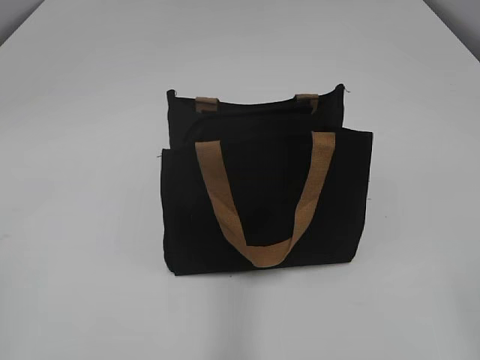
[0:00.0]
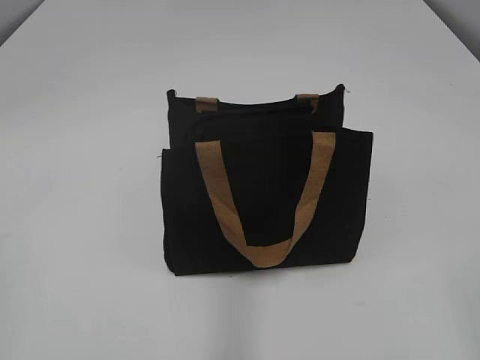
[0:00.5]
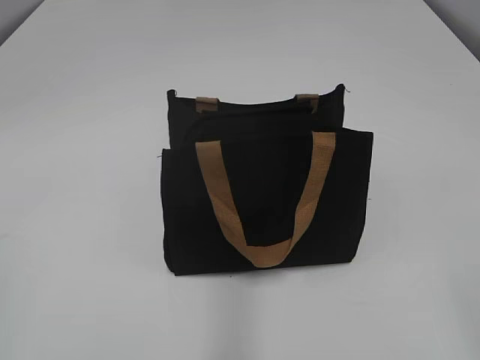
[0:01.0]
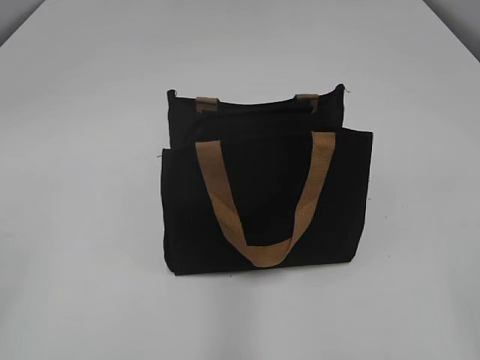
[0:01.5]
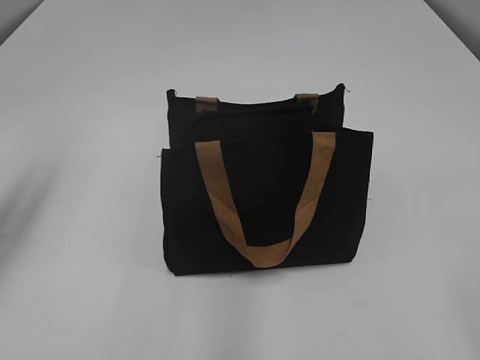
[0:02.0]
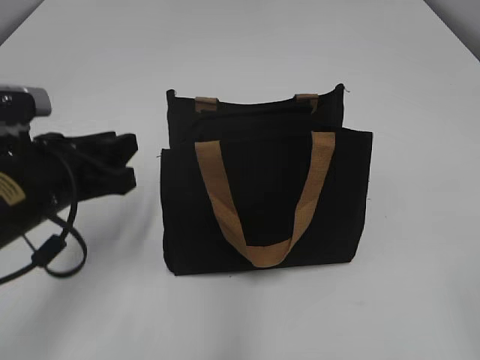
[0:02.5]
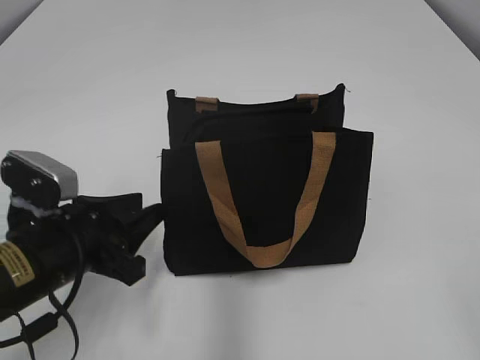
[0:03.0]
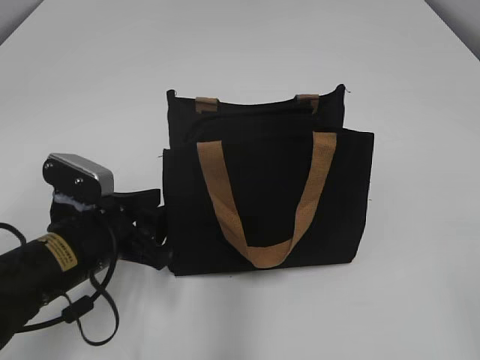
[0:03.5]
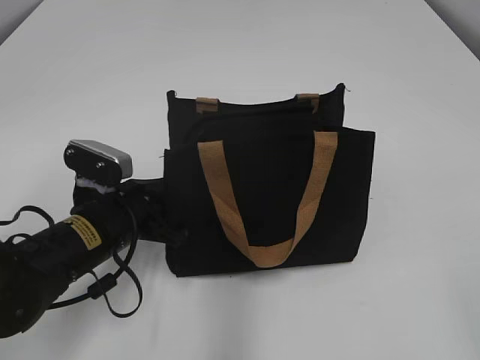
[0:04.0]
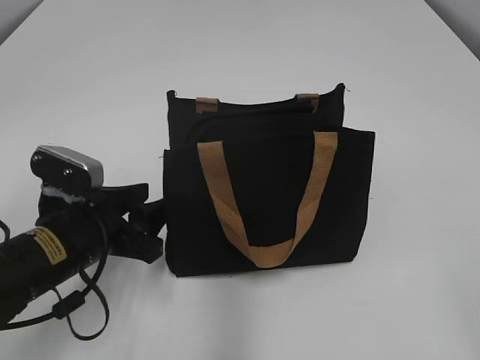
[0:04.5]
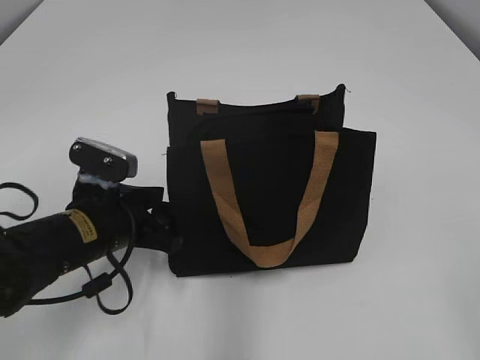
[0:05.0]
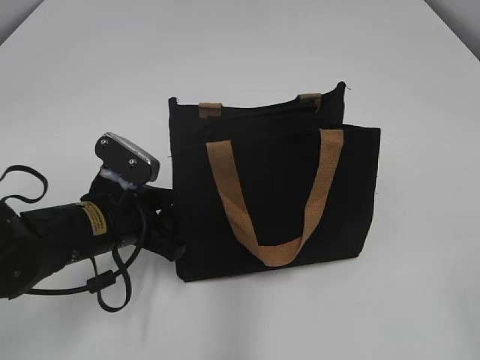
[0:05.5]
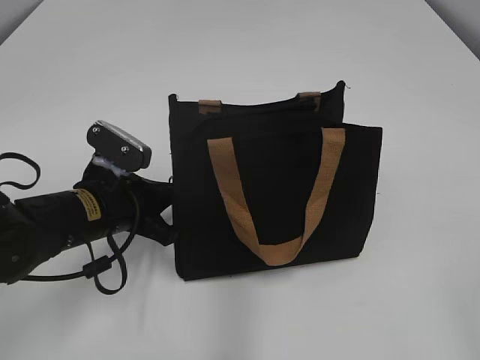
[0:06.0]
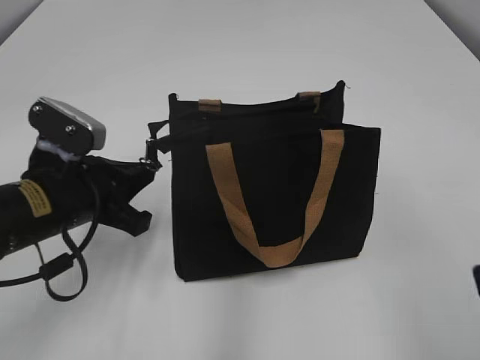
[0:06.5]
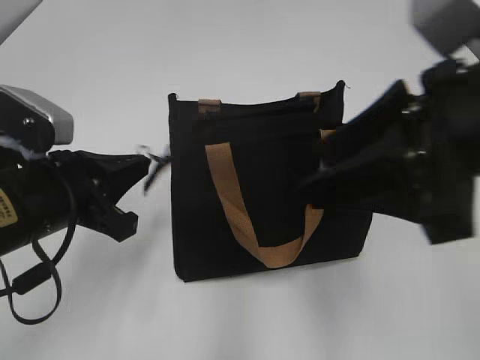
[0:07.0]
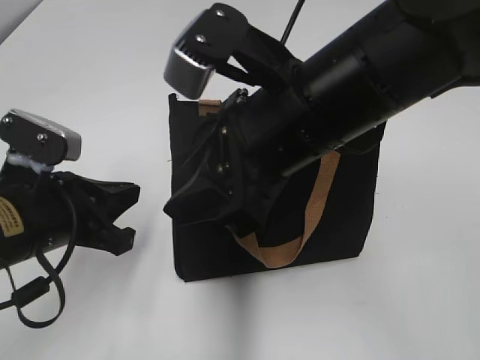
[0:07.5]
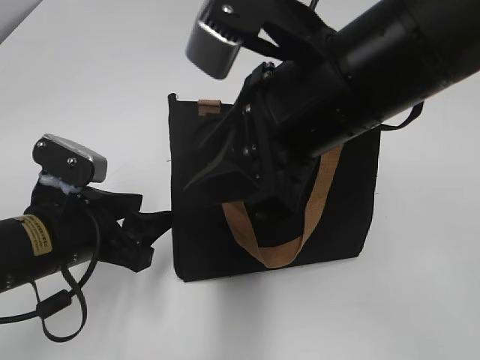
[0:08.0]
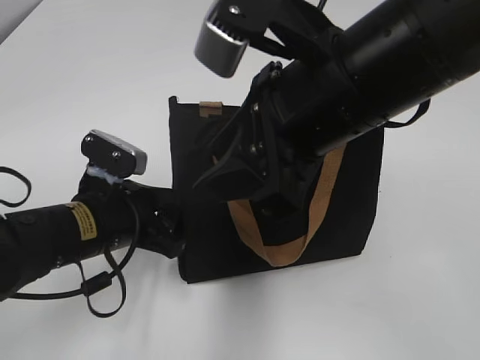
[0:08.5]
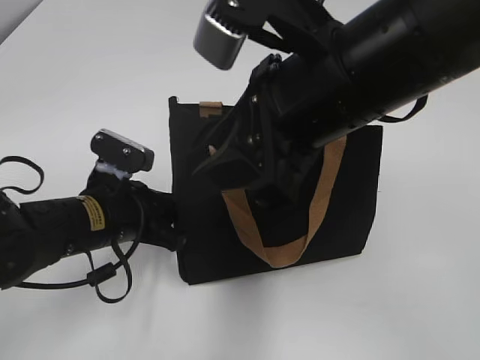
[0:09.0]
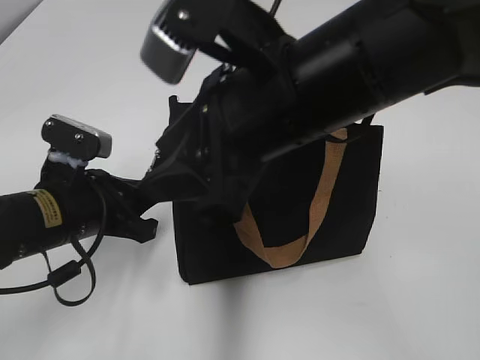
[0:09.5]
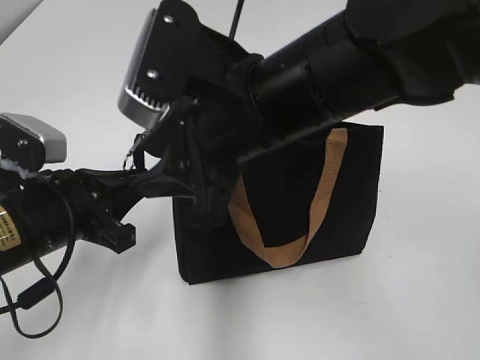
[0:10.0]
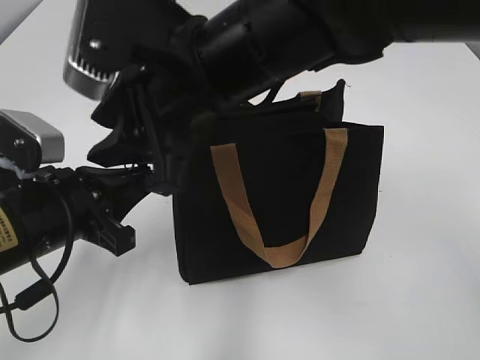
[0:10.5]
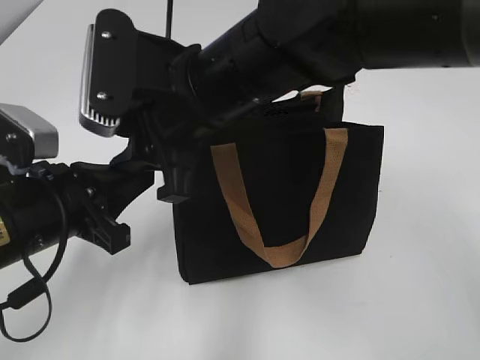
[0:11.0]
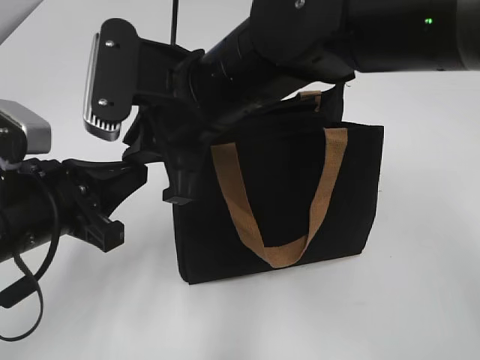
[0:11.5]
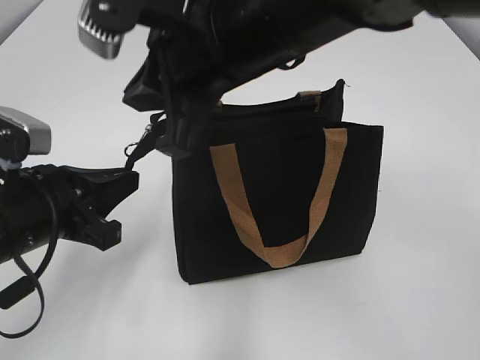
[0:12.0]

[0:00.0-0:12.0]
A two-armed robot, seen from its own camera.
0:02.0 to 0:04.0: The left gripper goes about 25 cm downward and to the right.
0:04.0 to 0:06.0: The left gripper opens, then closes once more.
0:06.0 to 0:08.0: The left gripper goes approximately 5 cm backward, and opens. Meanwhile the right gripper goes approximately 30 cm forward and to the left, and closes up.
0:08.0 to 0:10.0: The right gripper changes place by roughly 5 cm, while the left gripper closes up.
0:10.0 to 0:12.0: The right gripper closes up.

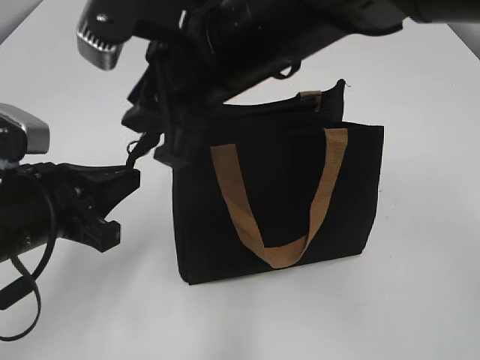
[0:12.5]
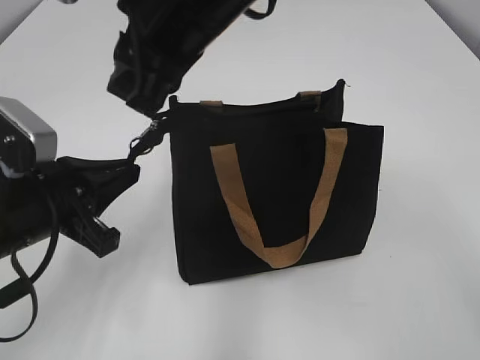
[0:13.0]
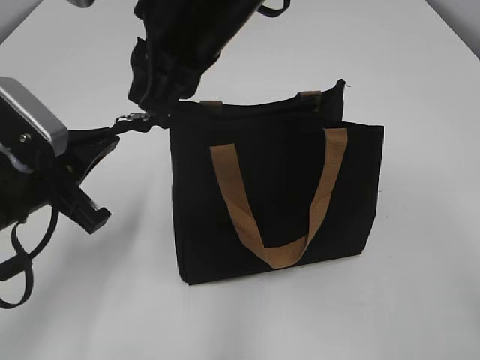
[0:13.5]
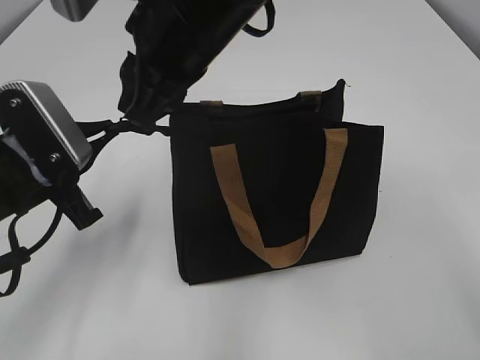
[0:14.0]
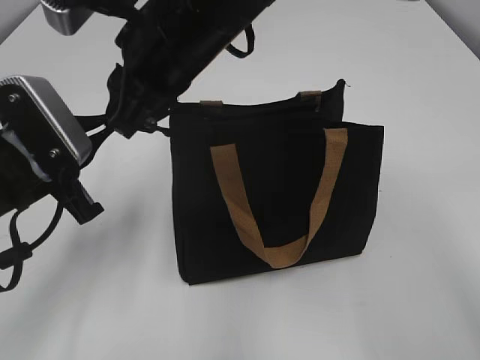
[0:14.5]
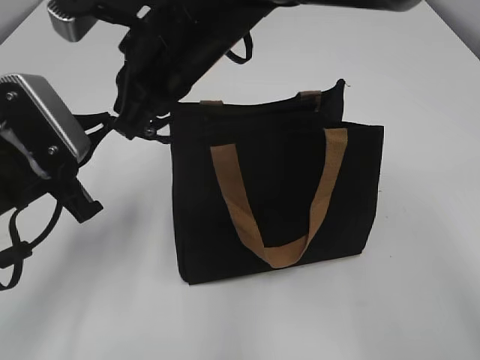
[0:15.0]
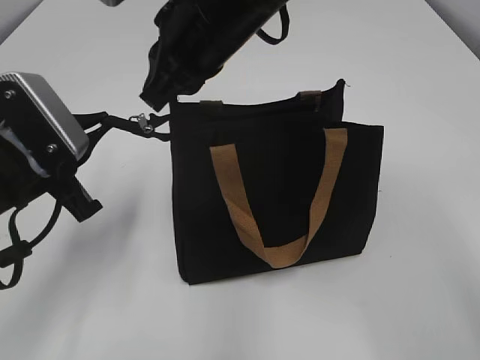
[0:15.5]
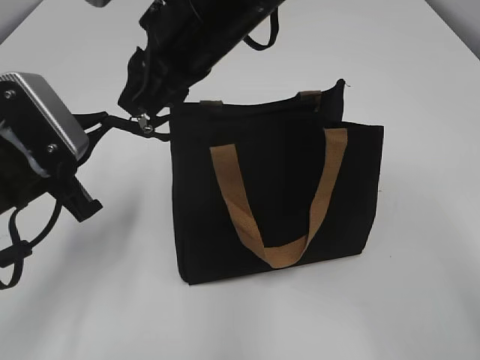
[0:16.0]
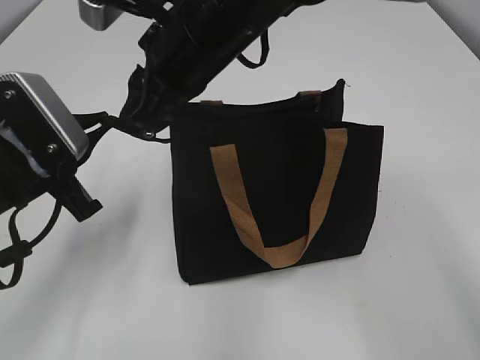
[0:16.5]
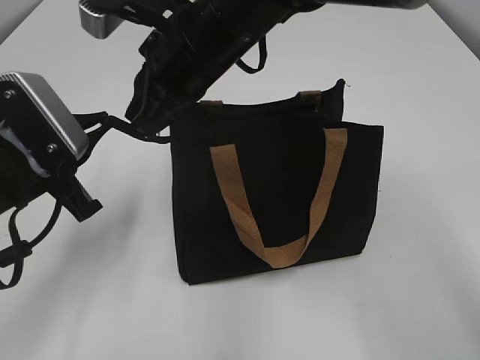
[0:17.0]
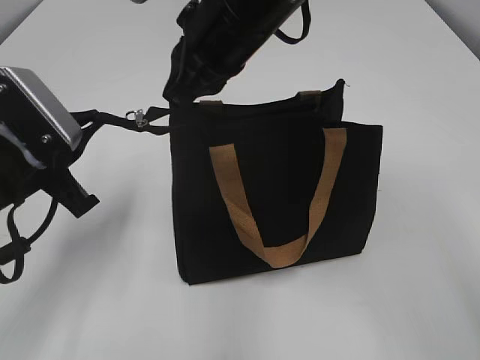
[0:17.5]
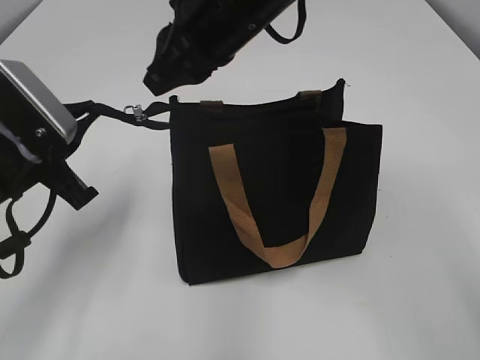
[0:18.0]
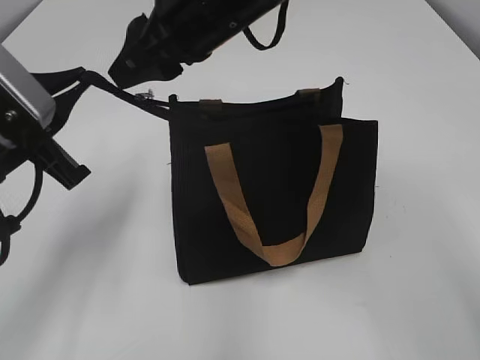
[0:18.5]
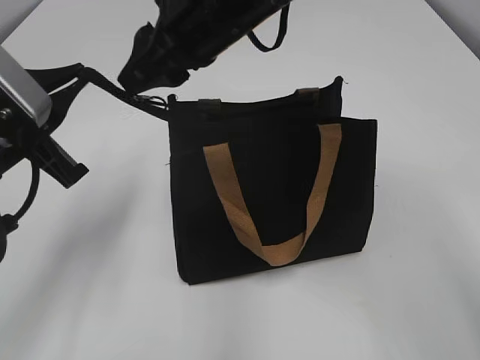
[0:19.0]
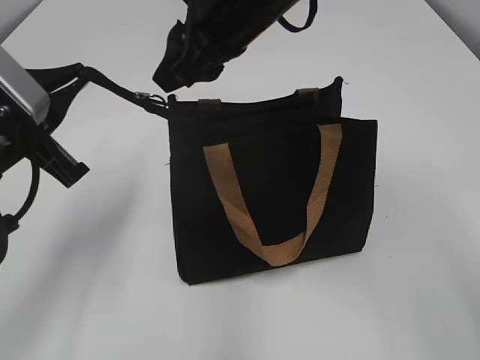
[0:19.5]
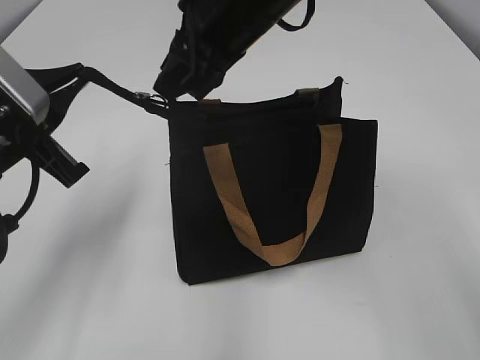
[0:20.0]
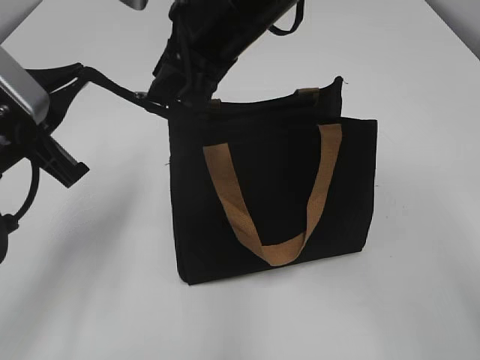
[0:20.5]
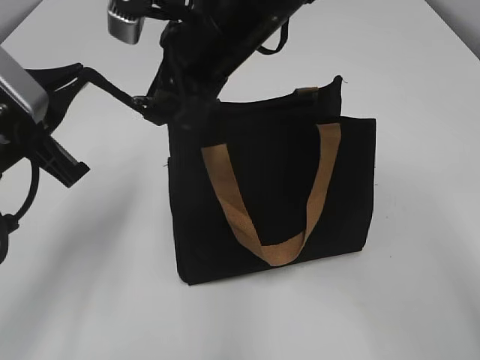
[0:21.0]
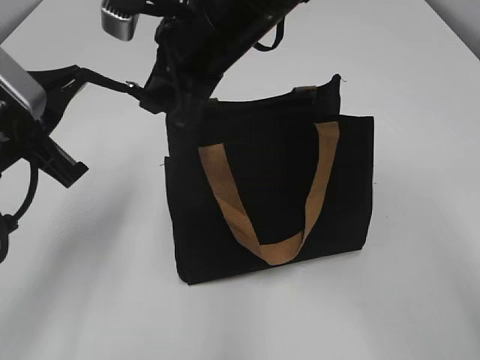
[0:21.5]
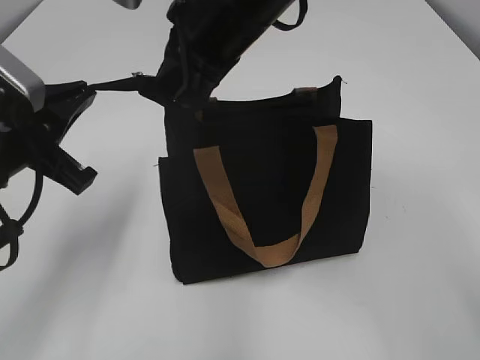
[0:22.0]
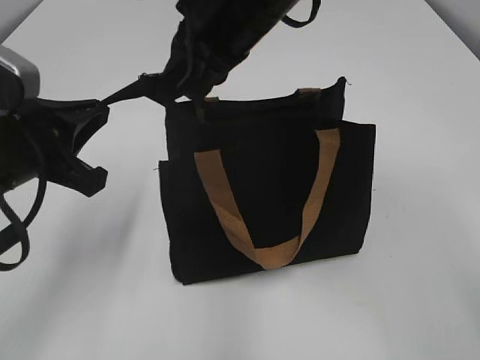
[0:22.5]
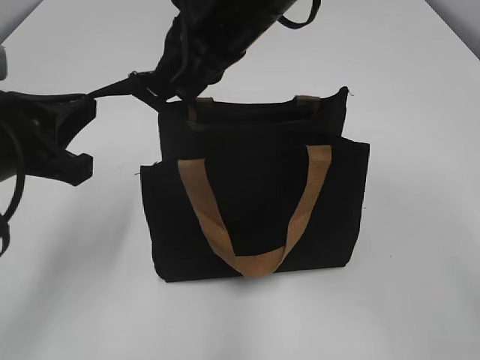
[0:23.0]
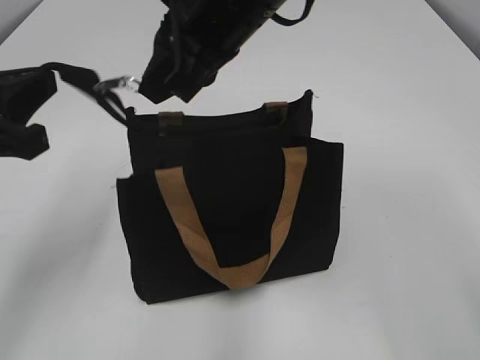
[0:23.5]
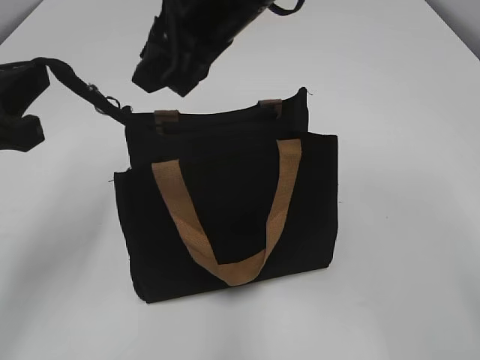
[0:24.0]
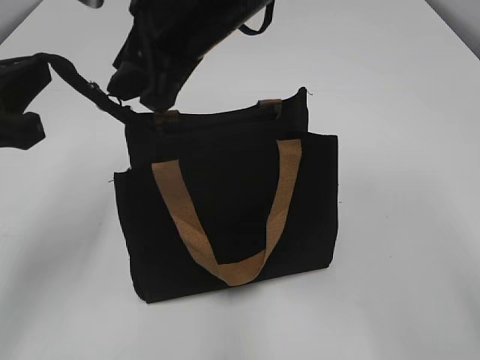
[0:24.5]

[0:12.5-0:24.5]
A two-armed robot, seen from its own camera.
0:12.5 to 0:14.5: The right gripper ends up roughly 5 cm from where it was.
0:14.5 to 0:16.5: The right gripper closes, then reopens.
0:16.5 to 0:18.5: The right gripper closes, then opens again.
0:20.5 to 0:22.5: The right gripper closes up.
0:22.5 to 0:24.5: The left gripper moves approximately 5 cm, while the right gripper opens its fingers.

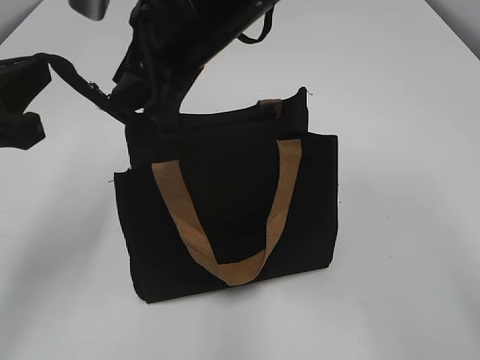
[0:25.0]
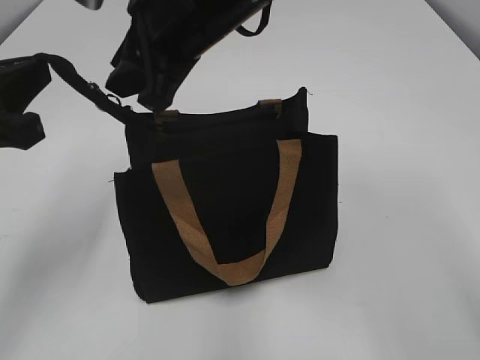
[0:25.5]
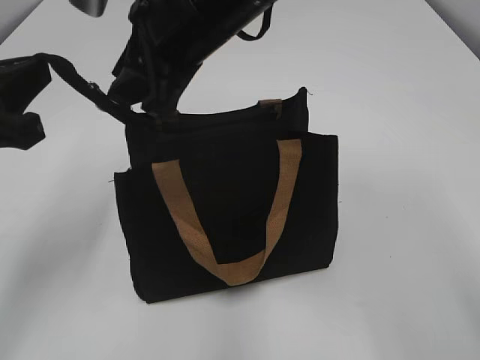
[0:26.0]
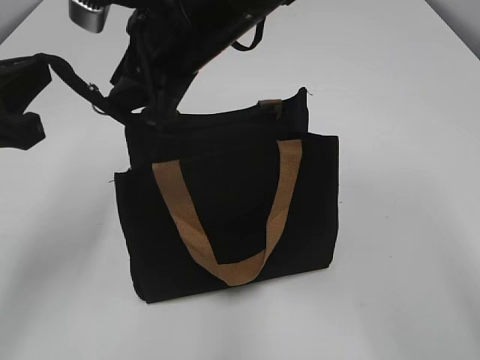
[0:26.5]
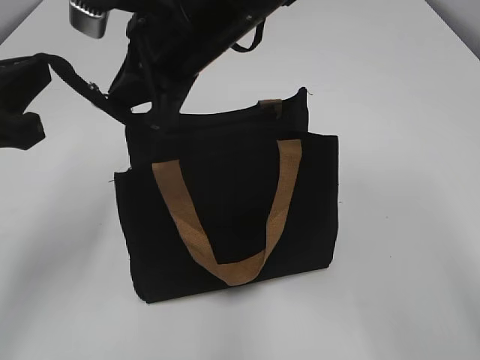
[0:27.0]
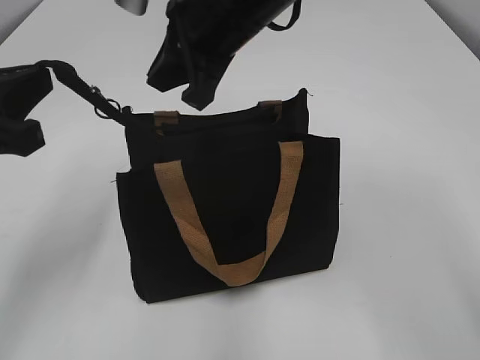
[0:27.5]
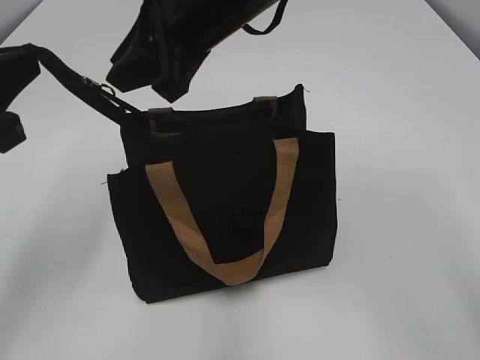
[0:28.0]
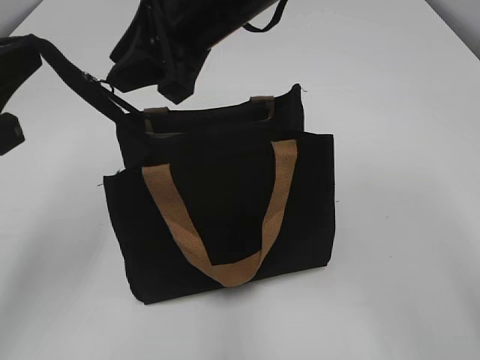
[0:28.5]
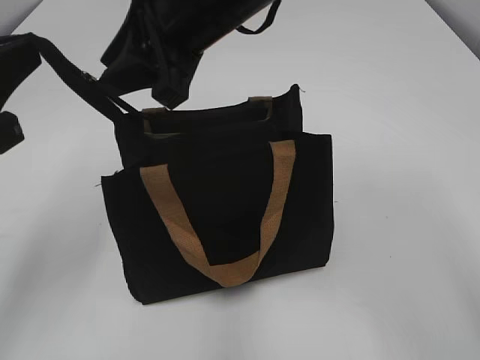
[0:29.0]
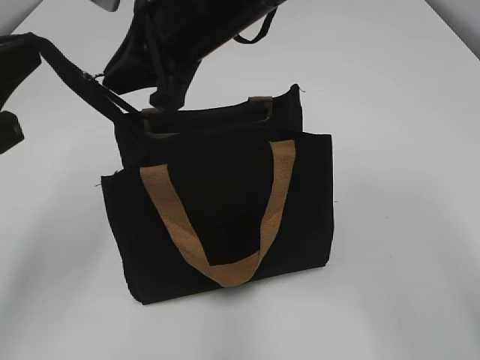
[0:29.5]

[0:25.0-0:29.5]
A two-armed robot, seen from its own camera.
0:25.0 to 0:27.0: The right gripper closes.
0:27.0 to 0:29.5: The grippers move only a little.
